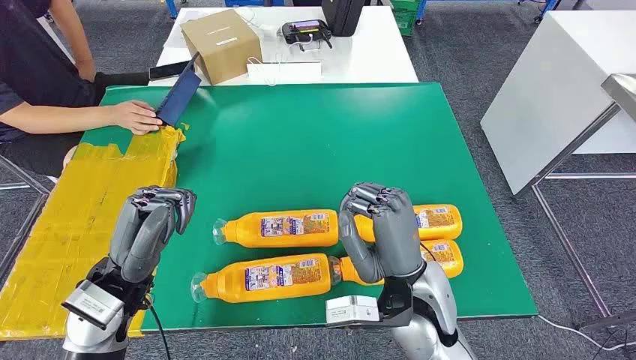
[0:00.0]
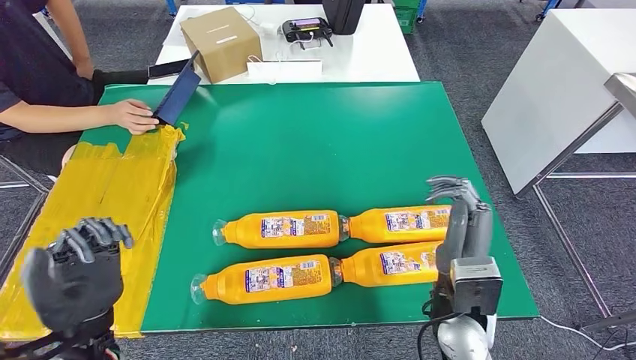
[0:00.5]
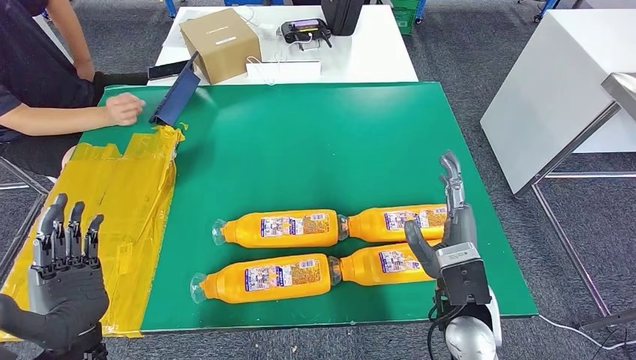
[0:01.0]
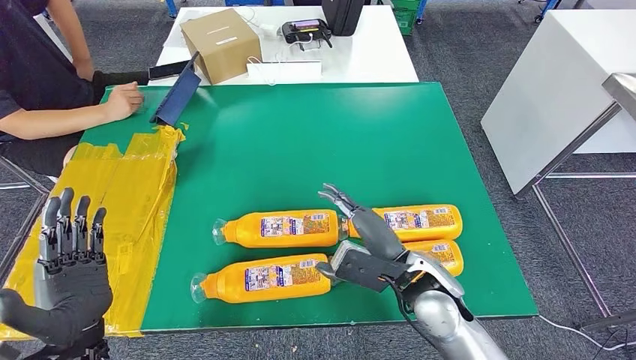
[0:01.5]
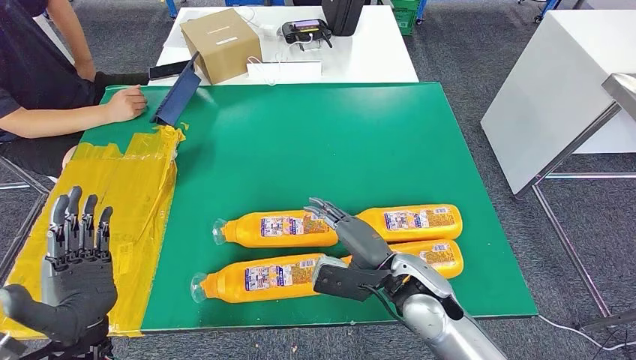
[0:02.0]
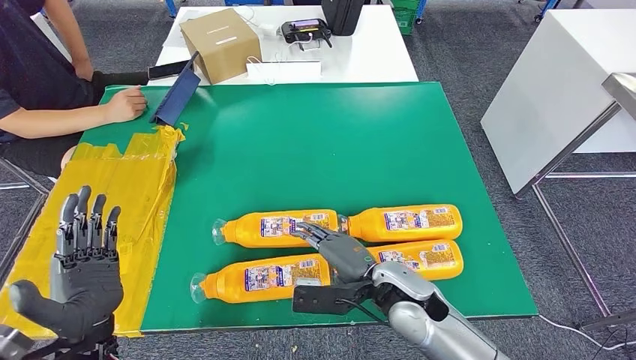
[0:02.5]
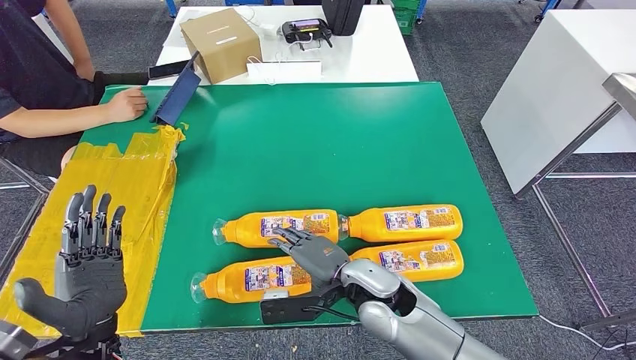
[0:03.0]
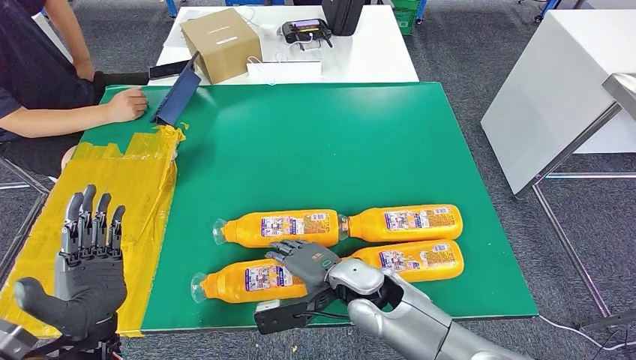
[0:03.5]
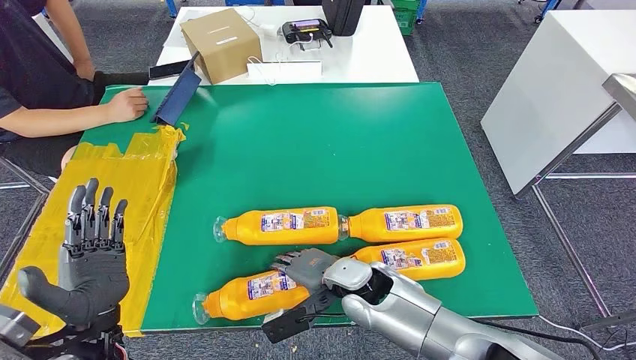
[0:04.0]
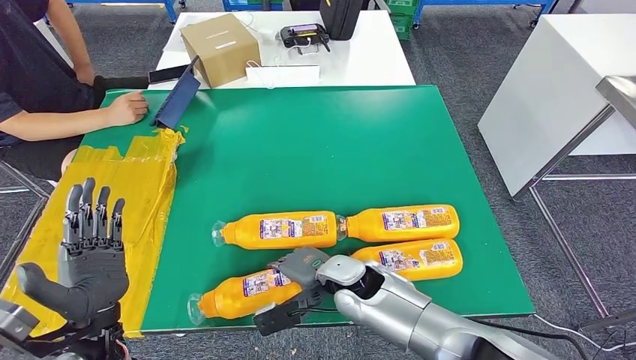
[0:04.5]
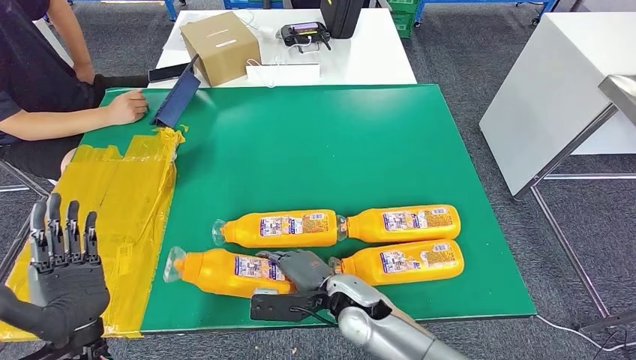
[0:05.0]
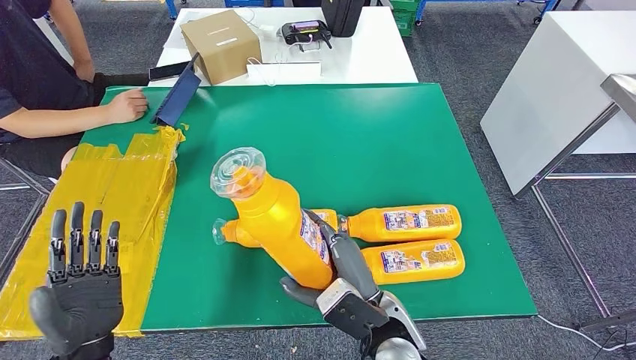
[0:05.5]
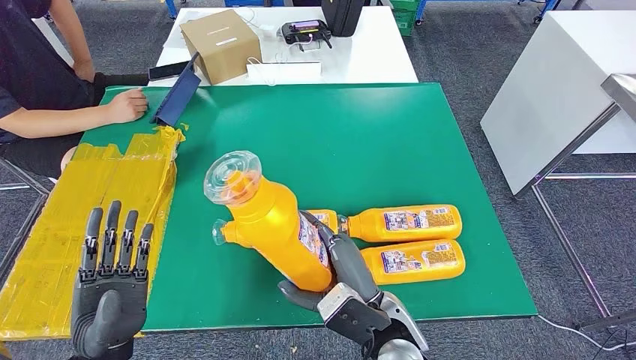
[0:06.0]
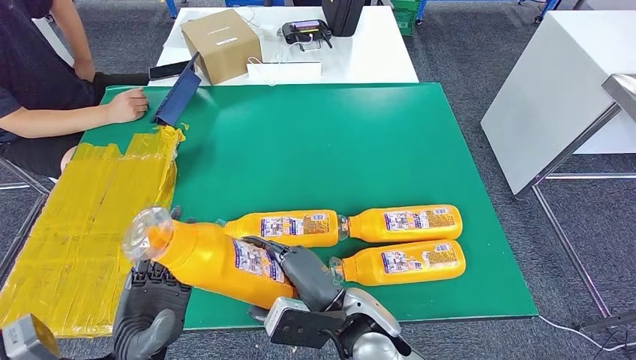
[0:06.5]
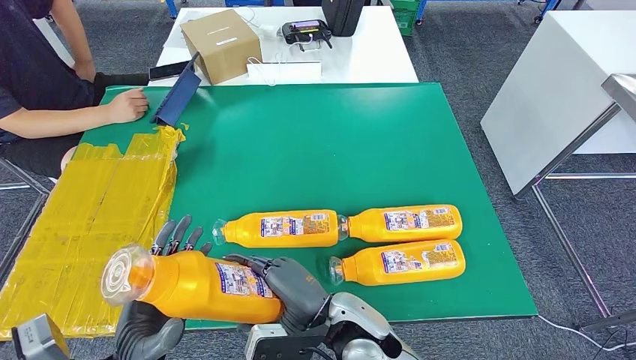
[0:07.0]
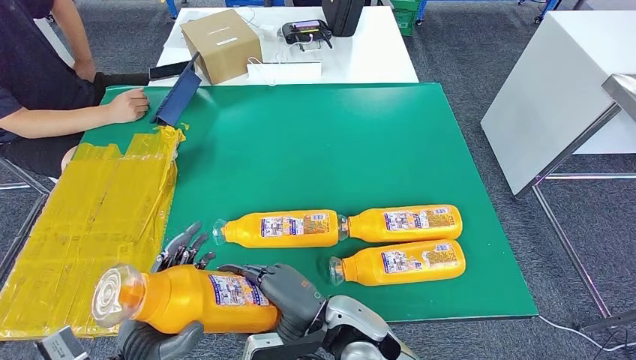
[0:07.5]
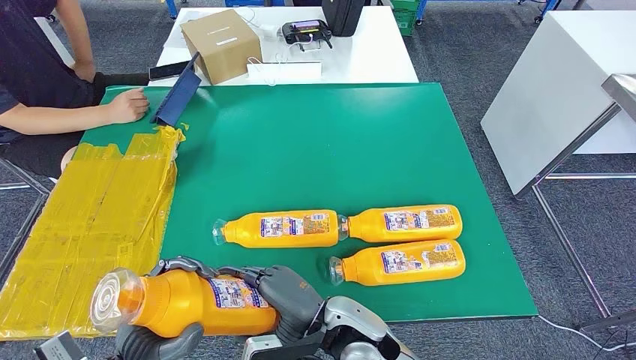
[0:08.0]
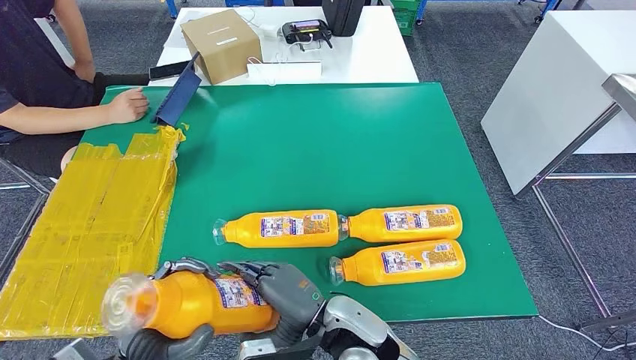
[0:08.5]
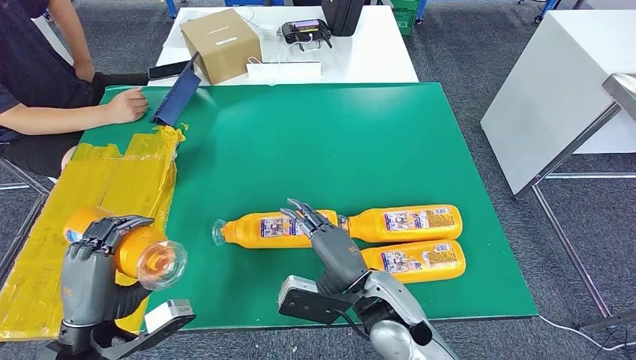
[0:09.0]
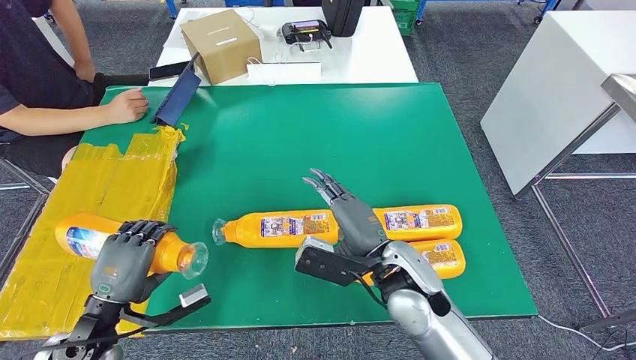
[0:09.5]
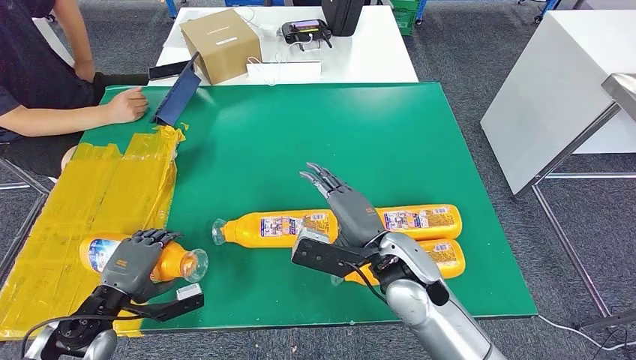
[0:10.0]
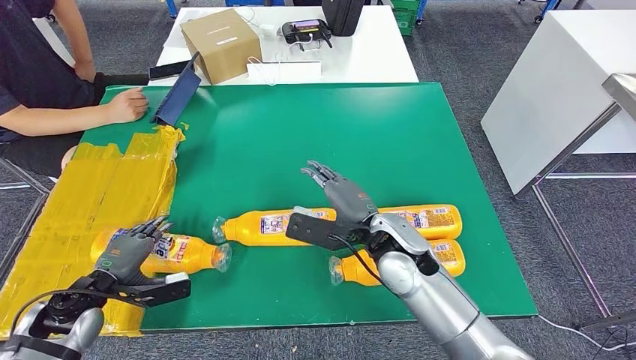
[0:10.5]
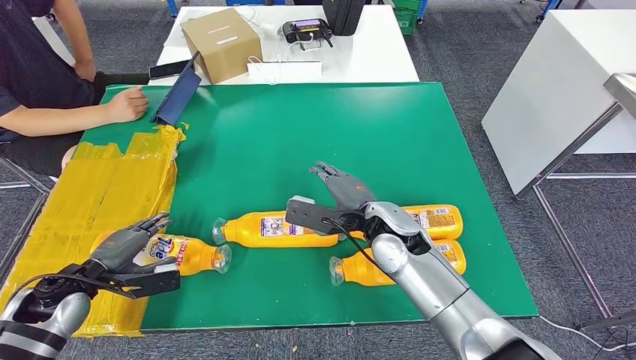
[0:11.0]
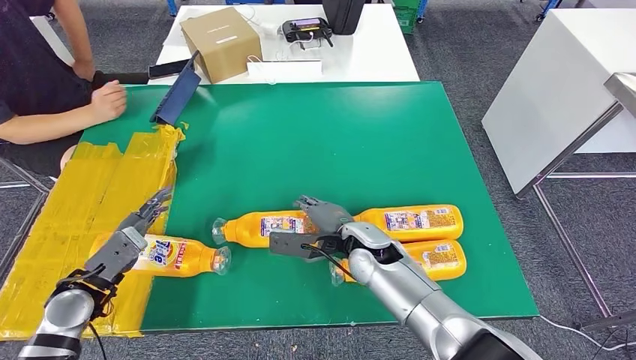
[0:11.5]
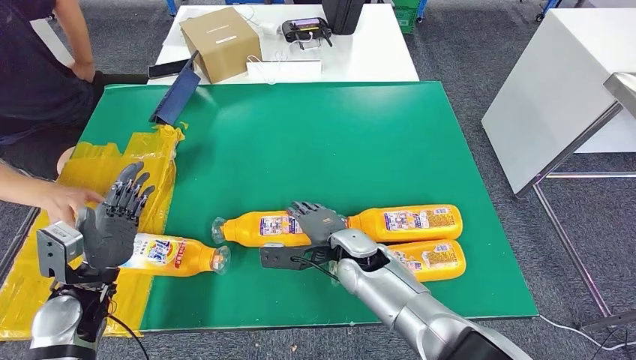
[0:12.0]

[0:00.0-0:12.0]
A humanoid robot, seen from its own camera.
Step, 0:00.0 to 0:05.5: Take the bottle from the table.
0:02.0 to 0:04.0: The right hand goes approximately 10 cm to the left and downward.
0:04.0 to 0:06.0: The right hand moves backward and upward, roughly 10 cm. Meanwhile the left hand moves about 5 cm.
0:06.0 to 0:08.0: The right hand goes approximately 5 cm to the left.
0:08.0 to 0:10.0: The left hand travels to the left, forward and downward by about 15 cm, while the right hand travels forward and to the right by some 10 cm.

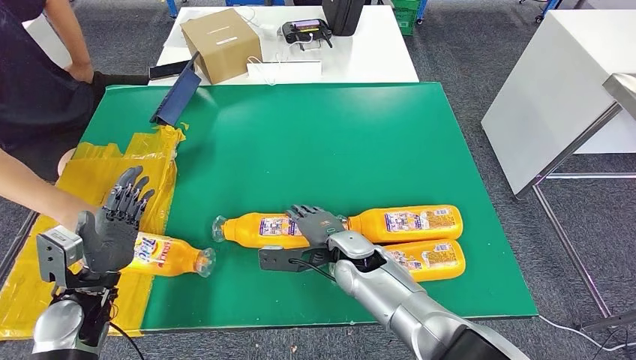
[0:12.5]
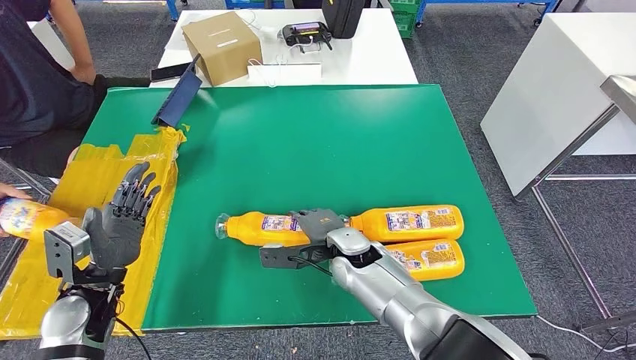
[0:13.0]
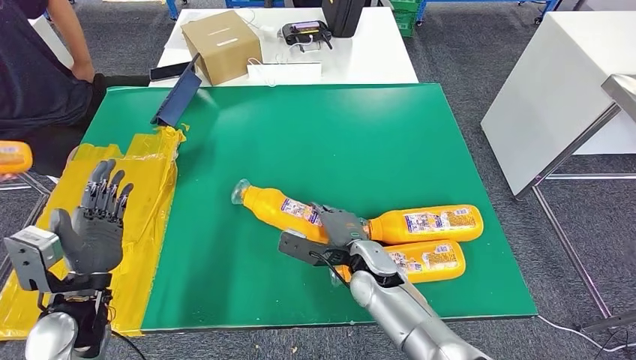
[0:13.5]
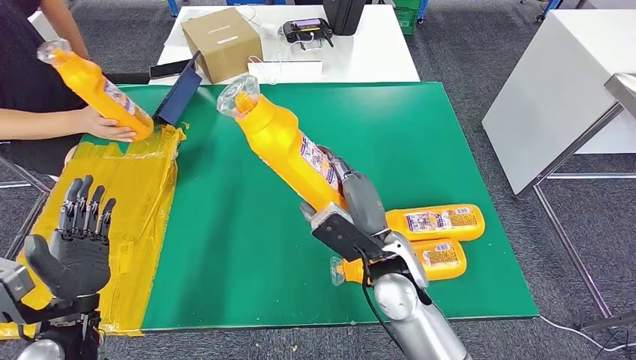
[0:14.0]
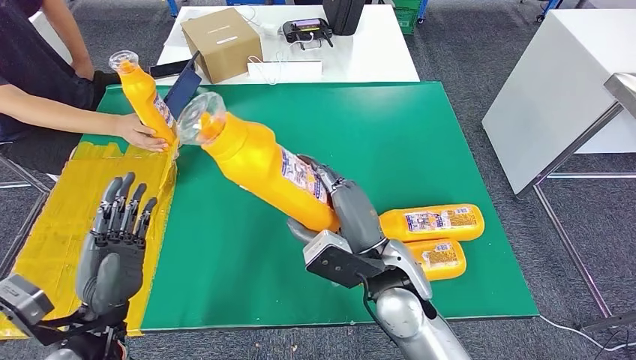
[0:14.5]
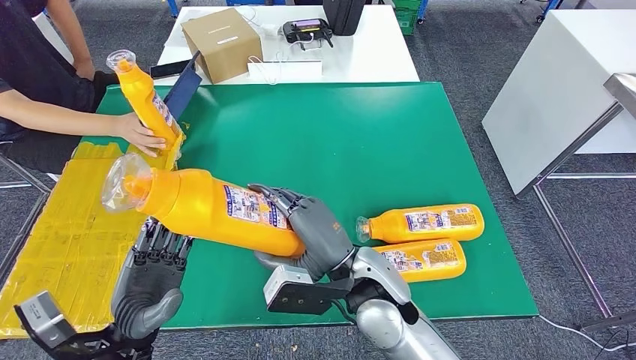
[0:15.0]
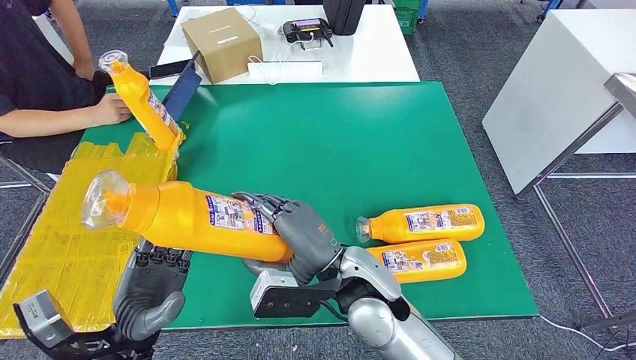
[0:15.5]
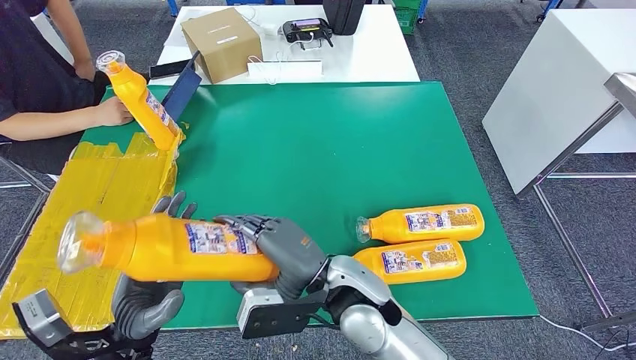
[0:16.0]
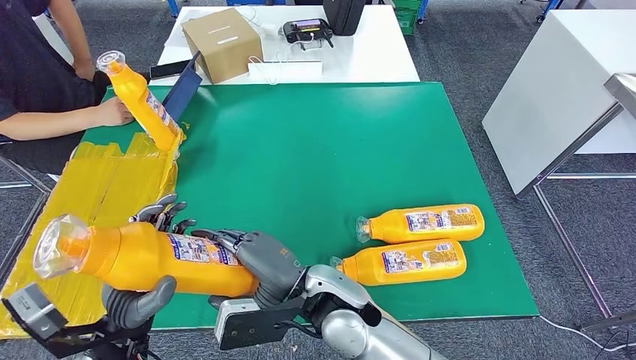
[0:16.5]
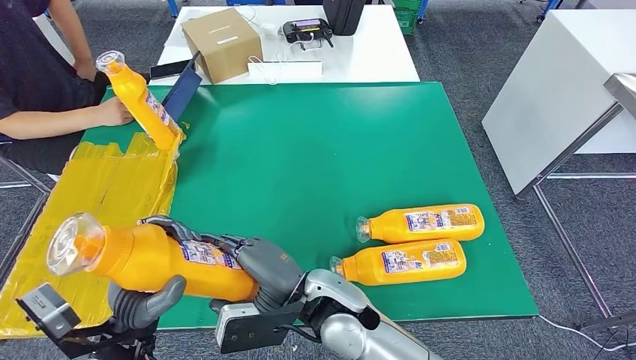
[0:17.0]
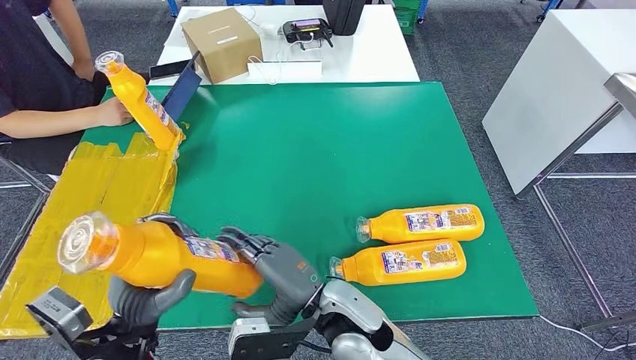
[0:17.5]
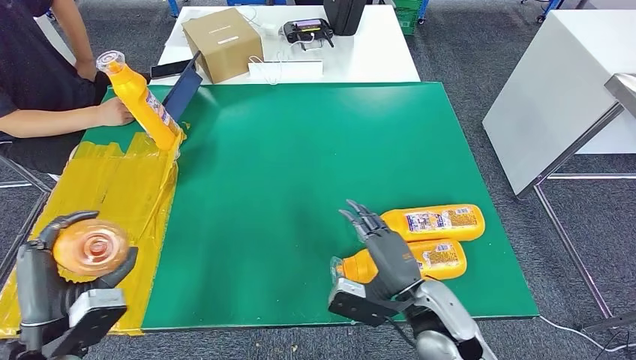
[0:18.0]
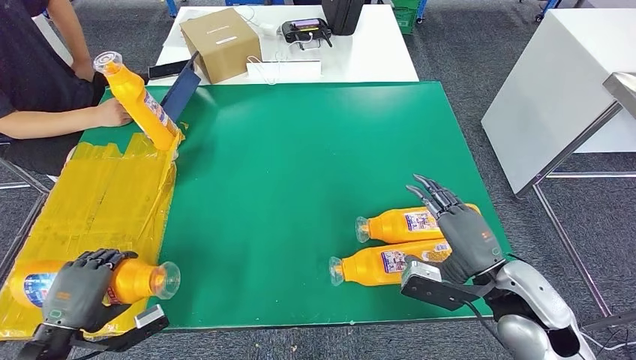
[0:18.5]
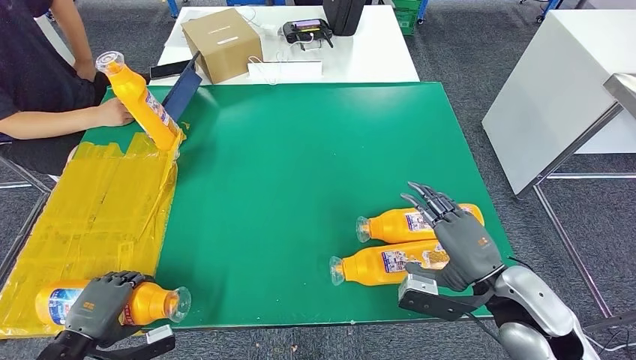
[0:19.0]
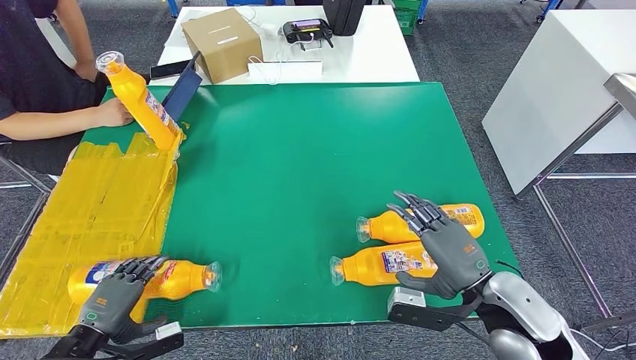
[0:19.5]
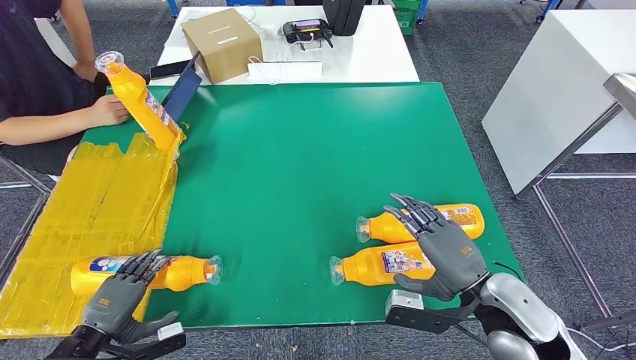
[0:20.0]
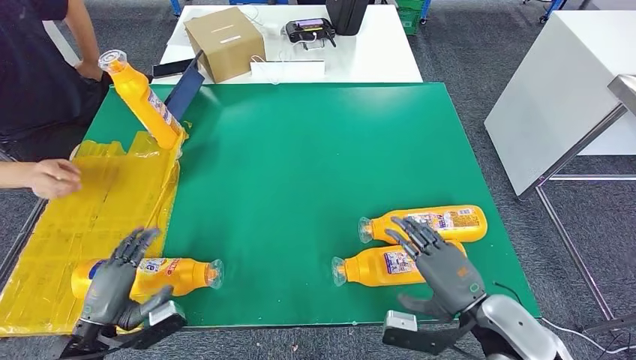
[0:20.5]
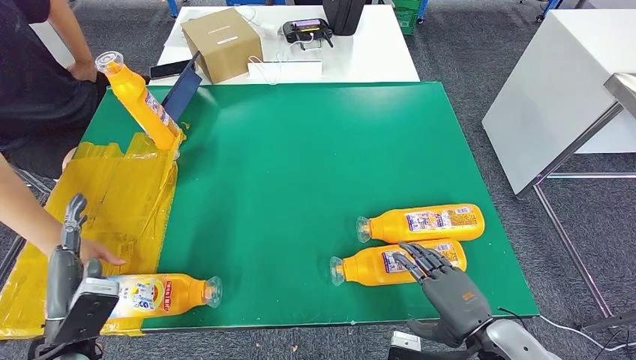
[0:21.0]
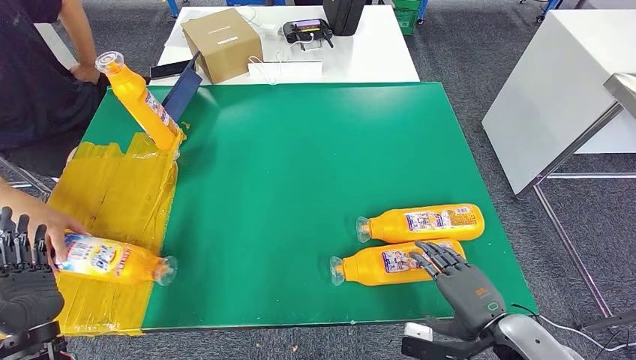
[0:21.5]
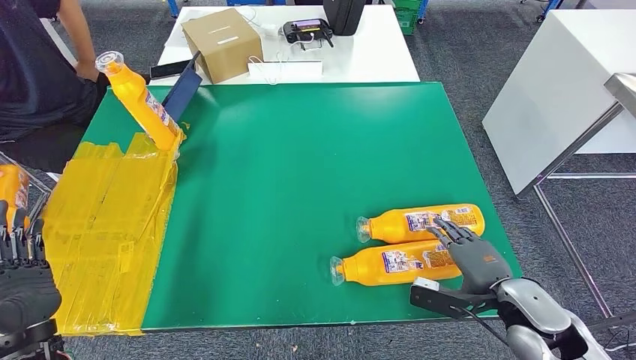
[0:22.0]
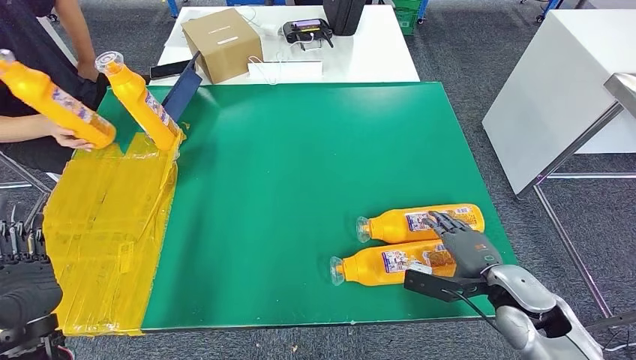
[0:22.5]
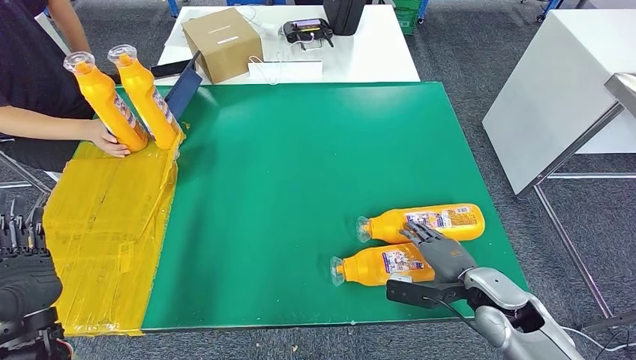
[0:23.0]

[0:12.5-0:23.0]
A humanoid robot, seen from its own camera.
Step, 0:12.5 to 0:14.5: Pick up the bottle from the table.
Step, 0:15.0 to 0:20.5: Flip the bottle to face forward.
0:16.5 to 0:19.0: The right hand moves to the right, about 25 cm. Meanwhile the left hand goes roughly 15 cm to the left and downward.
0:19.0 to 0:21.0: The right hand moves backward and downward, some 10 cm, while the left hand shifts roughly 5 cm upward.
